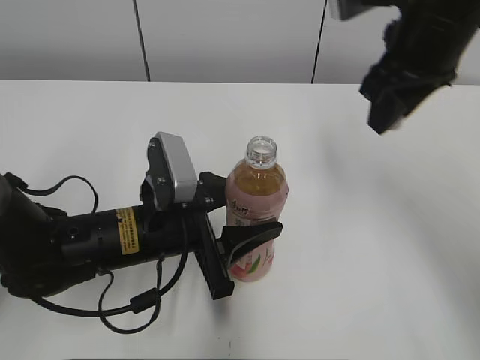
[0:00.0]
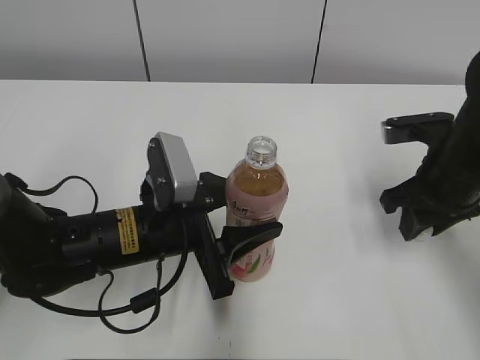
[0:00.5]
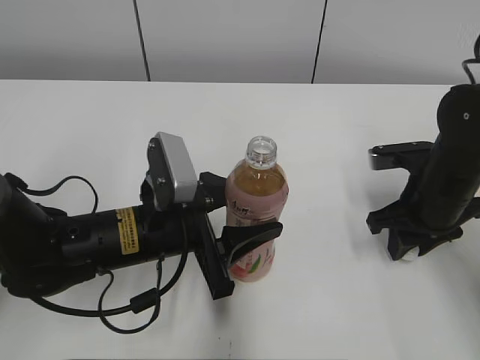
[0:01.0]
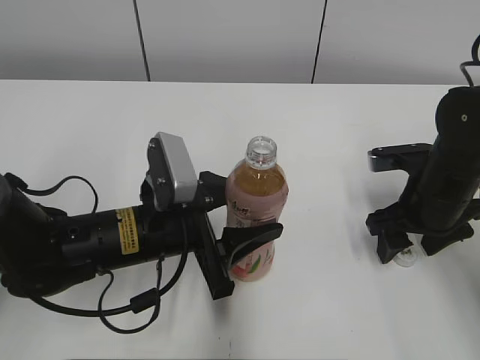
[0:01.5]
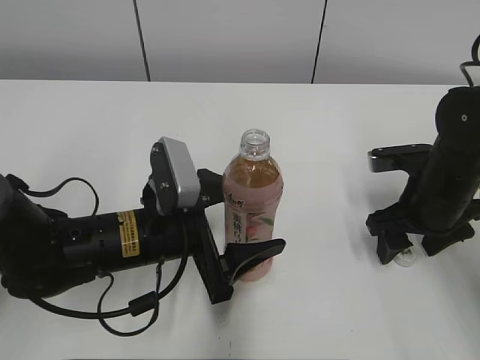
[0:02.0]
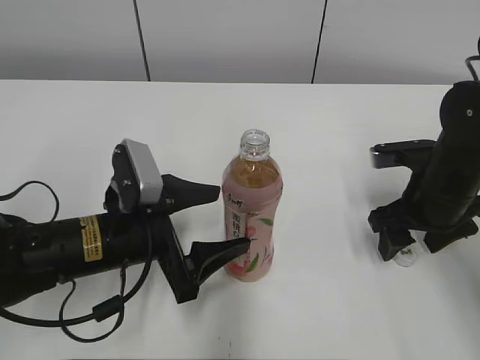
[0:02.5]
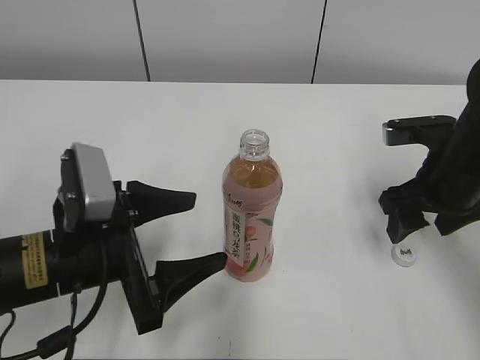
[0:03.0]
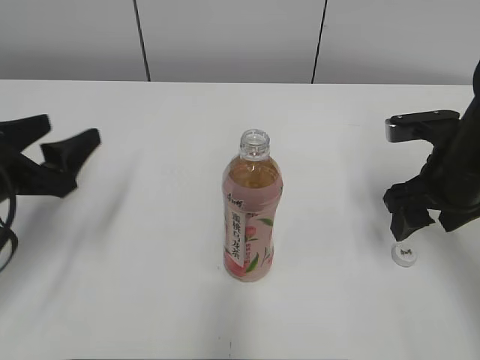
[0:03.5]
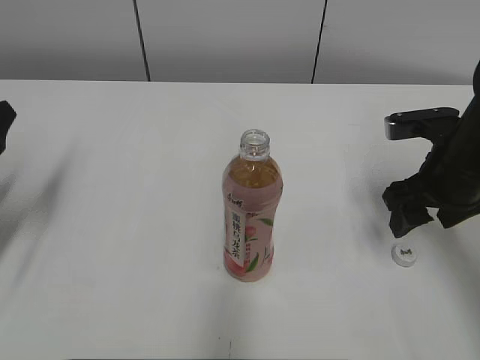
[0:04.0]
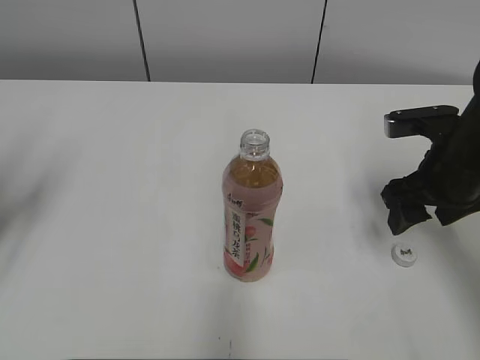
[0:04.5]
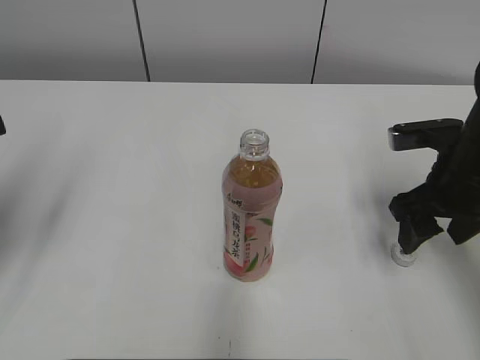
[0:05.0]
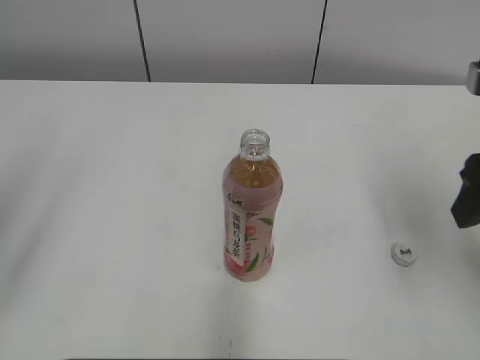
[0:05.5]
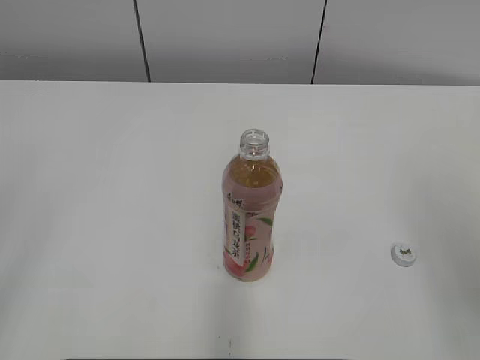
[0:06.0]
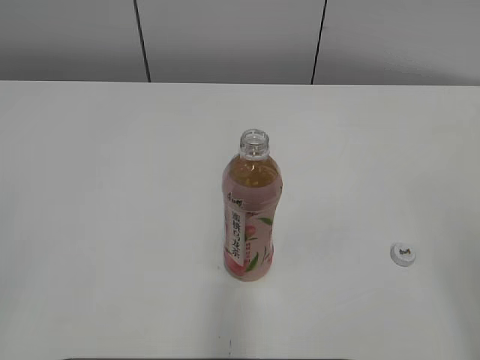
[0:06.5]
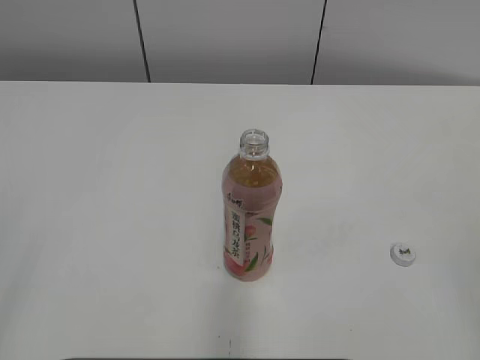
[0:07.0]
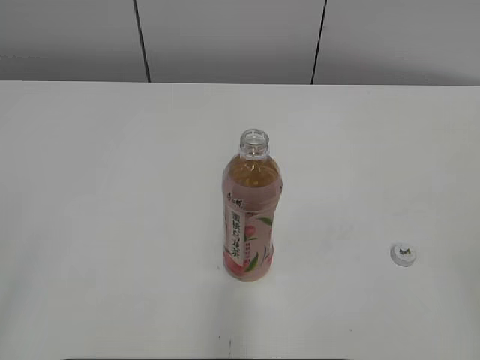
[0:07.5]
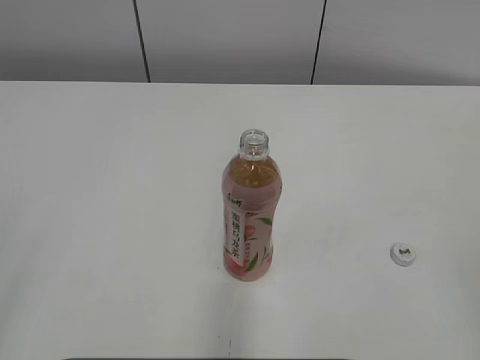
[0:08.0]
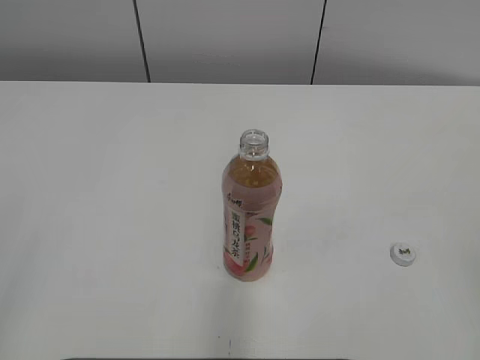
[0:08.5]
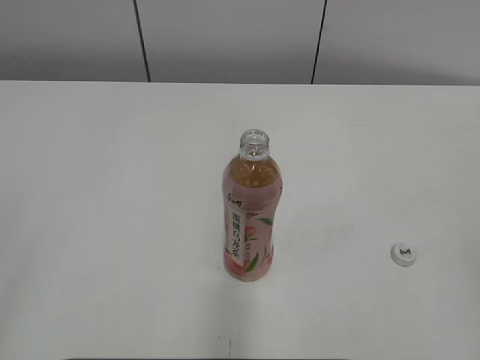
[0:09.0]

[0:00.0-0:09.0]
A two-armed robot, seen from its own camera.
0:00.0 to 0:02.0: The left gripper opens, while the right gripper goes approximately 20 cm downward, and opens up.
0:02.0 to 0:04.5: The left gripper moves to the left and upward, some 25 cm. Meanwhile the right gripper moves upward, about 5 cm.
0:04.5 to 0:07.0: The left gripper moves backward, roughly 25 cm, and closes, while the right gripper travels backward and upward by approximately 30 cm.
